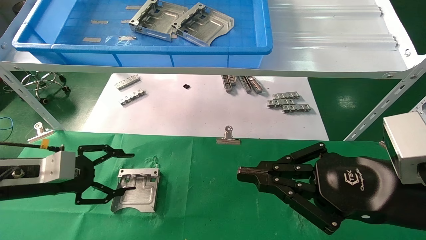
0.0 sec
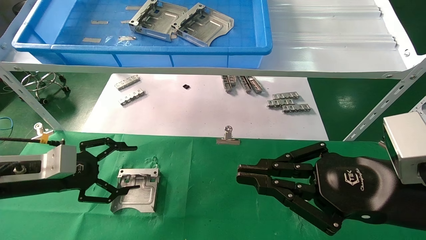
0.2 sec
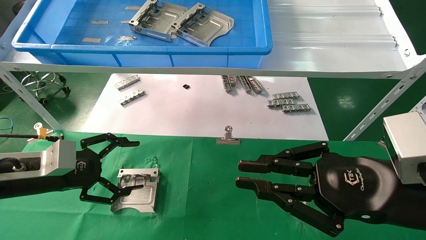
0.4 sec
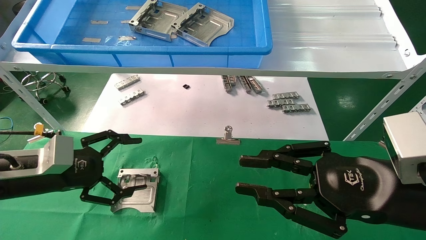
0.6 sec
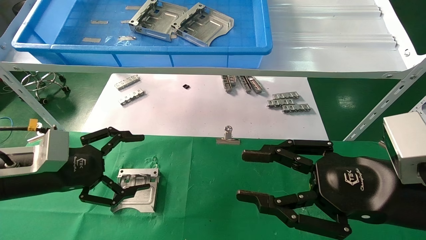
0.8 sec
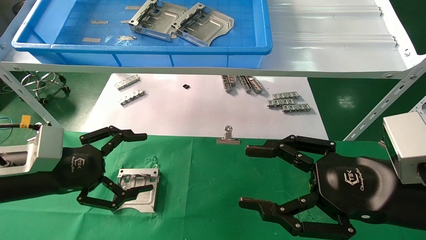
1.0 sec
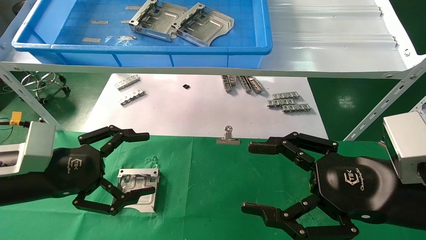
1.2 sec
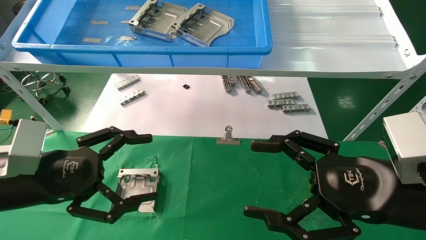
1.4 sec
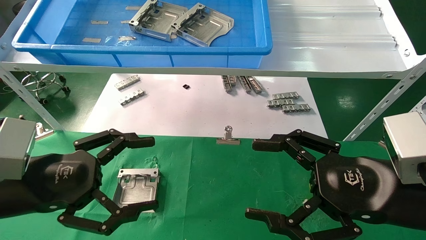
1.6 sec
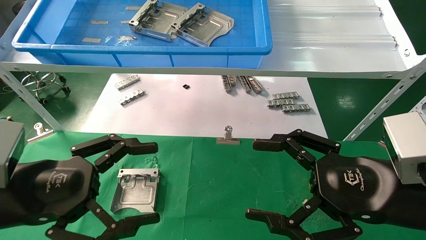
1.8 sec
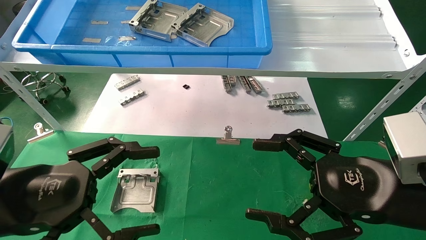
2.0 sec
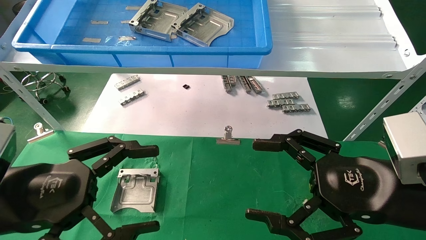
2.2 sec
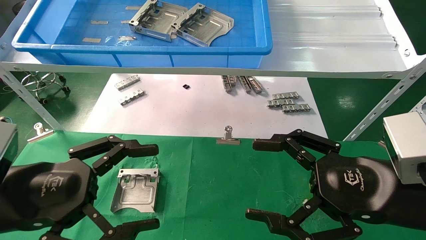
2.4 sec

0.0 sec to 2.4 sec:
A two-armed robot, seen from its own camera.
Task of the whole recording: use the mechanical arm to pick up the parts and place them on the table.
0.0 sec to 1.2 sec: The left gripper shifts some 10 cm backward and to the right, and opens its fingers. Meanwhile the right gripper opens its fingers.
1.2 sec to 2.4 sec: The left gripper goes roughly 5 cm backward.

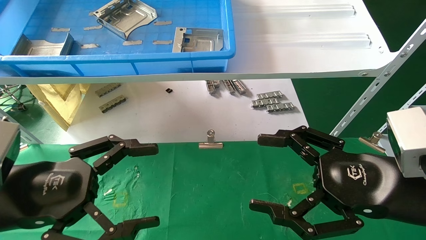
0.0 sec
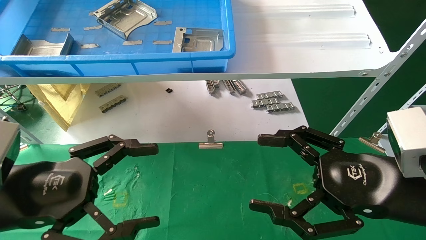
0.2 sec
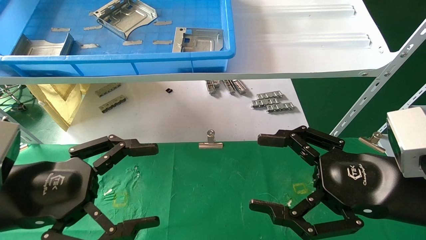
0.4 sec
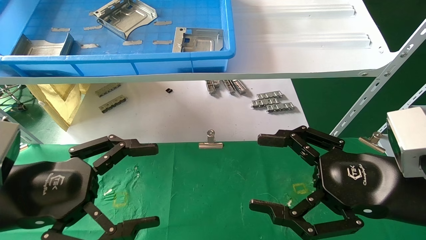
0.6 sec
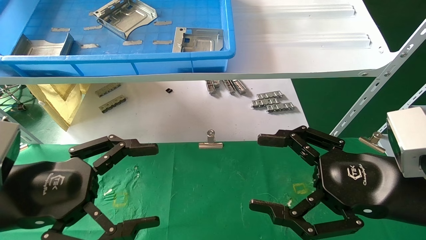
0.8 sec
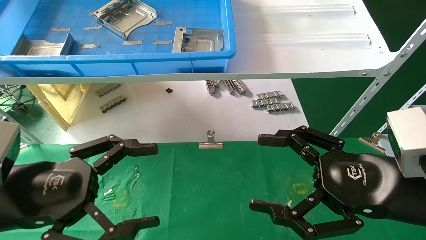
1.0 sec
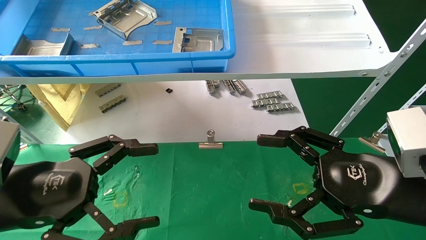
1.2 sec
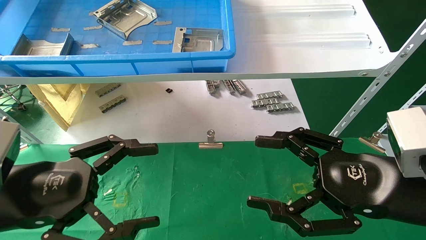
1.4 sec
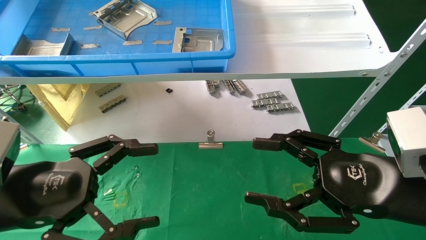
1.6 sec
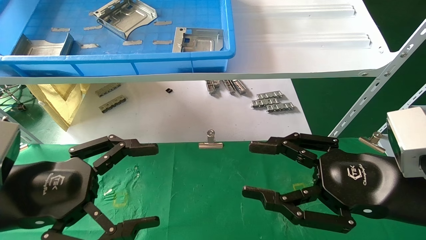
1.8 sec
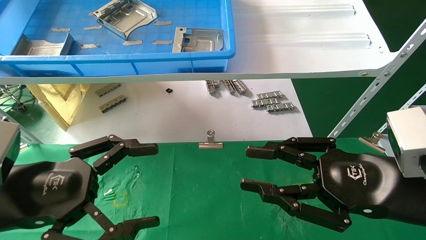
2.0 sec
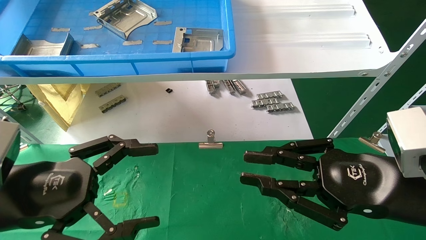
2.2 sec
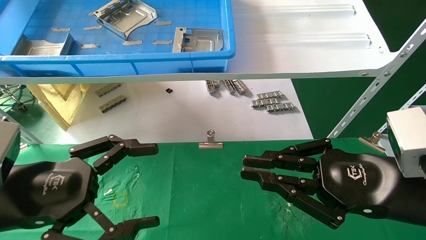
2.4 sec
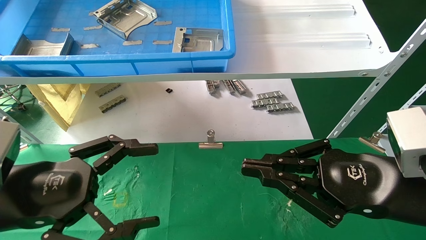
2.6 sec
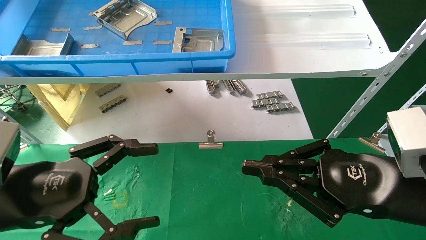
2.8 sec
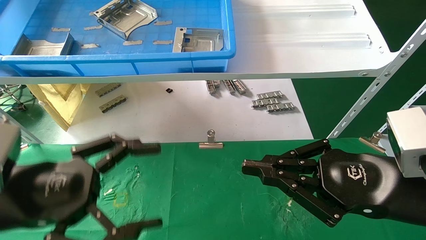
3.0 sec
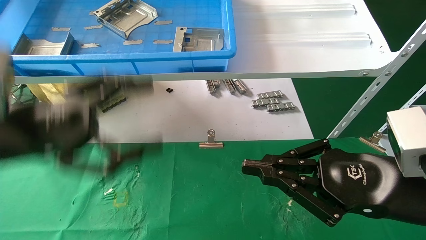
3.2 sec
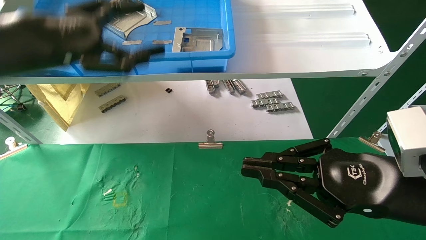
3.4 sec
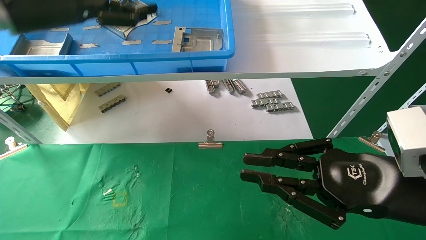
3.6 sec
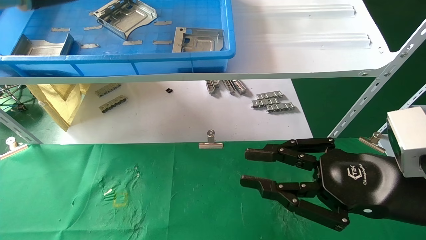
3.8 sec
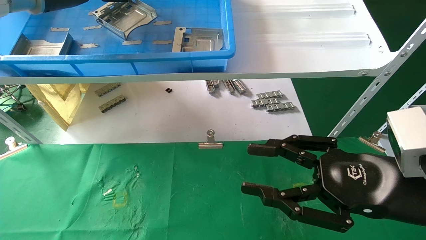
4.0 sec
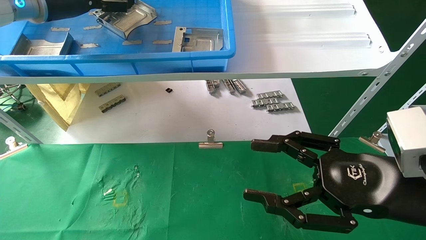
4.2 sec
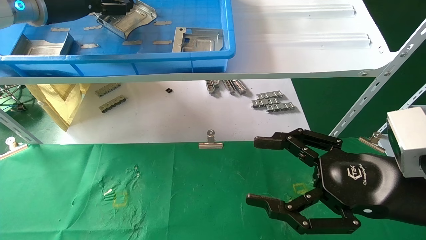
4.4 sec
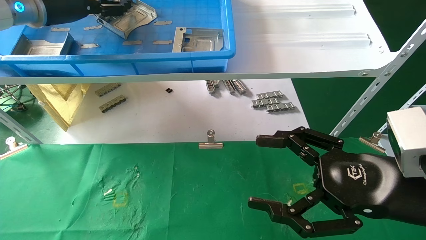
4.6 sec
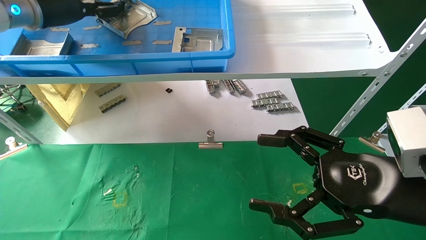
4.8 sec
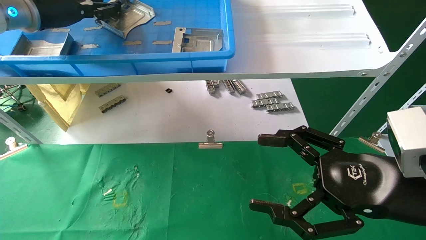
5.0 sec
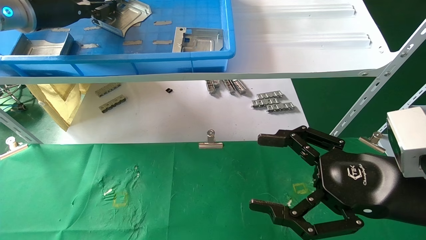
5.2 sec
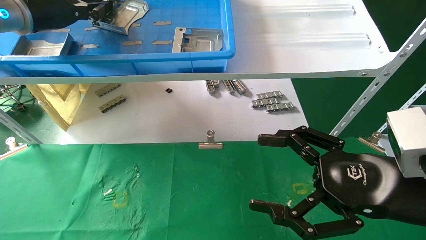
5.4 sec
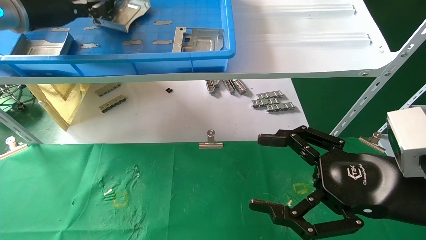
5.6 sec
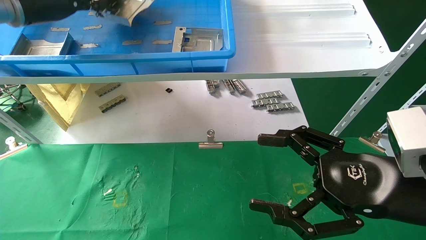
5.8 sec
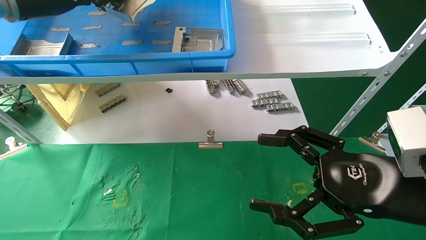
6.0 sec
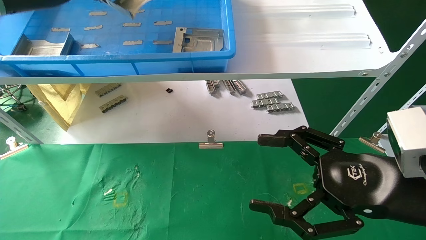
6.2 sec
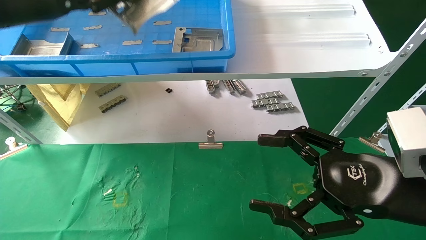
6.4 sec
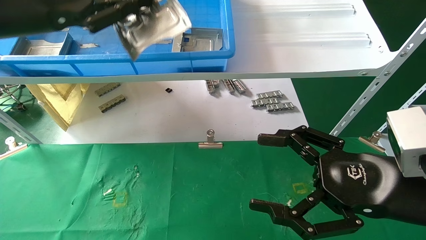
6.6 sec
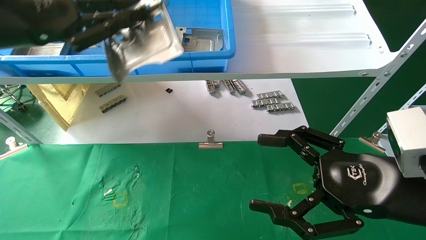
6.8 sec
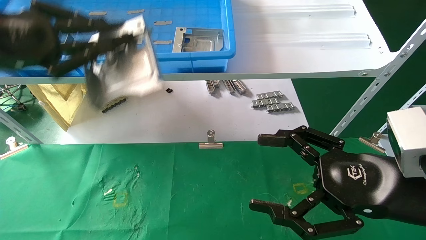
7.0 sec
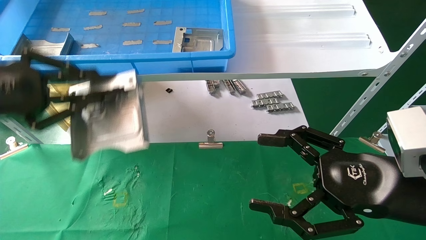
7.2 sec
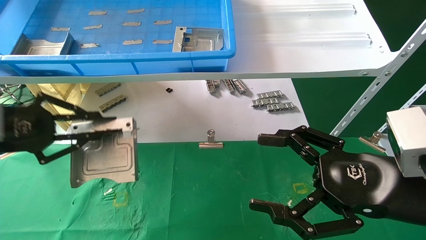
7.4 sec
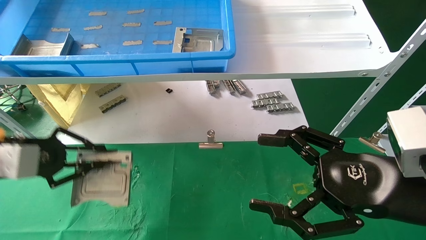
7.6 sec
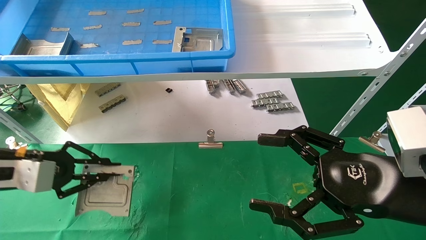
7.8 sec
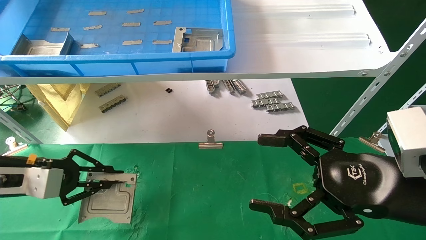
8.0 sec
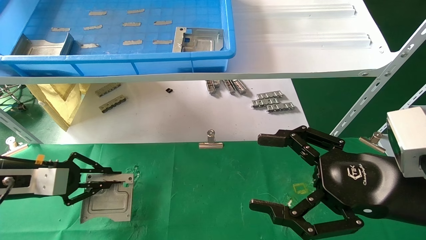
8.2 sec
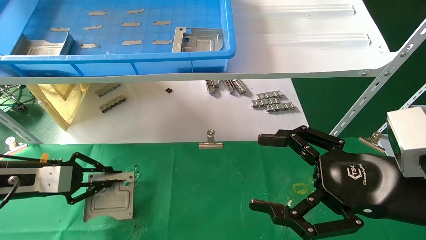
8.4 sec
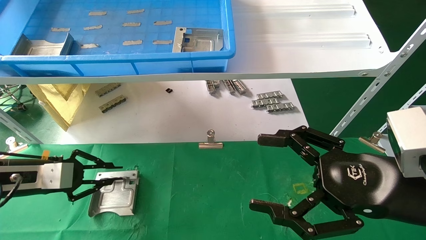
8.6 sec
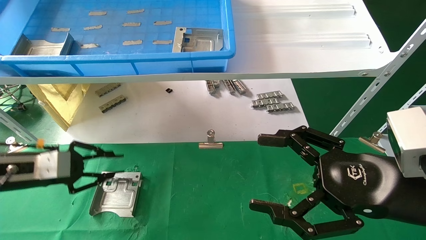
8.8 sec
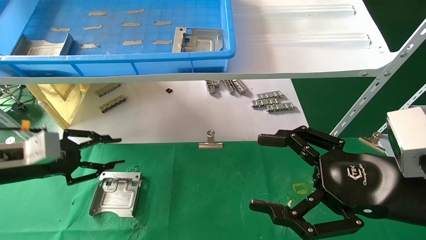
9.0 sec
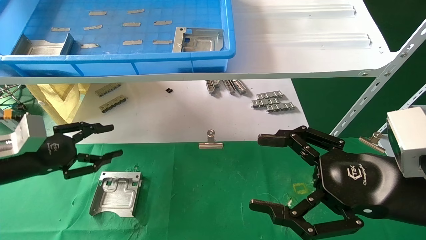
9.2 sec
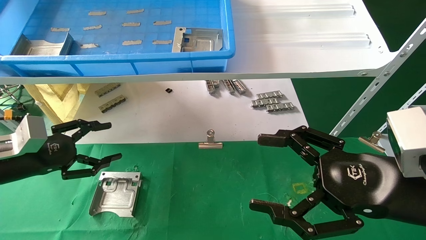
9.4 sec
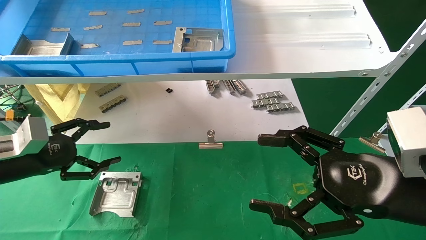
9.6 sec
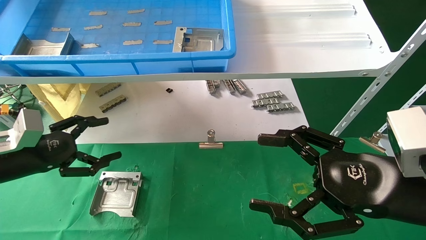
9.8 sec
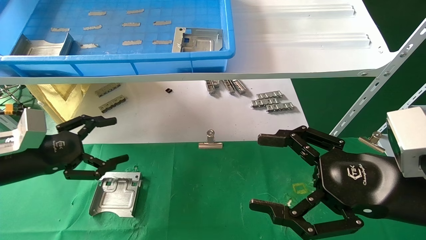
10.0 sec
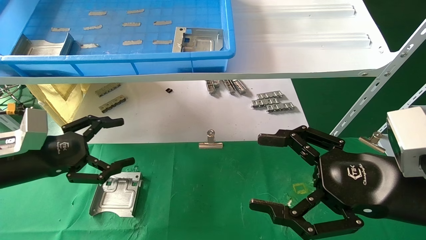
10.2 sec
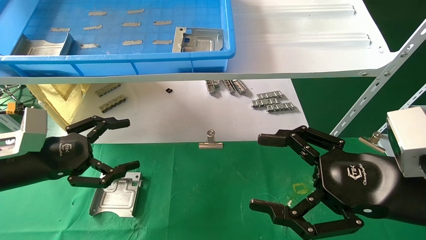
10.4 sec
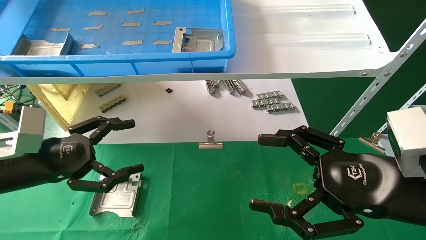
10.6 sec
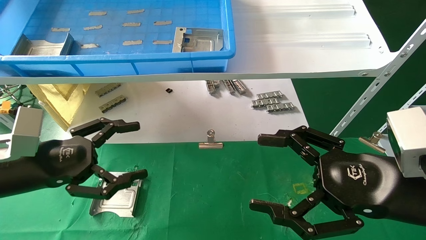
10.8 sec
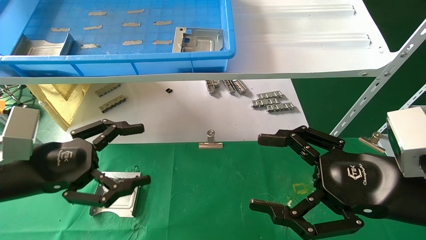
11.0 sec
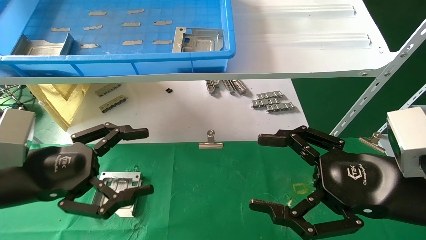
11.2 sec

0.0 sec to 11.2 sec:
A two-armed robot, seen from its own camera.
Task of the whole recording: use the mechanical arm to pick up the parts and place them on the table.
Step, 2.0 sec to 5.4 sec: Pick up the hard drive bracket from the feeding area.
Step, 5.6 sec to 8.8 sec: Place the hard drive bracket into the box.
0.0 sec to 1.6 sec: Both grippers stay about where they are.
1.6 sec to 3.2 sec: The left gripper travels upward and forward by approximately 10 cm, while the right gripper closes up.
3.2 sec to 4.8 sec: The left gripper goes roughly 25 cm forward and upward. Meanwhile the right gripper opens.
4.8 sec to 6.4 sec: The left gripper goes some 10 cm backward, and closes up.
6.4 sec to 8.0 sec: The left gripper moves downward, roughly 25 cm.
8.0 sec to 9.6 sec: The left gripper opens up.
9.6 sec to 11.2 sec: The left gripper moves to the right and backward, some 10 cm.

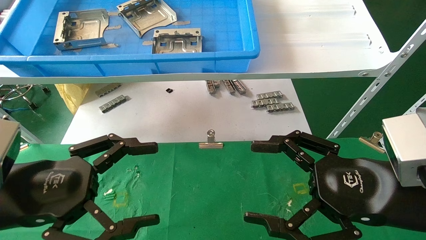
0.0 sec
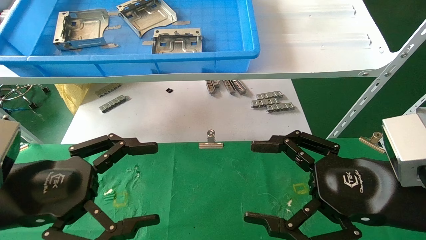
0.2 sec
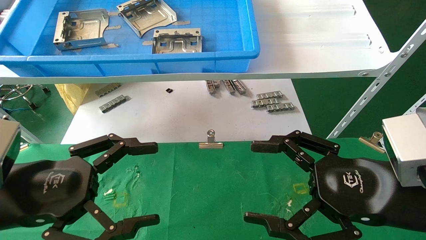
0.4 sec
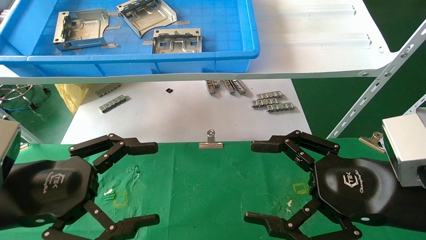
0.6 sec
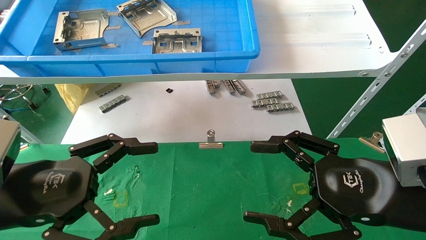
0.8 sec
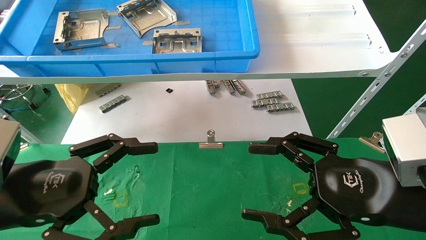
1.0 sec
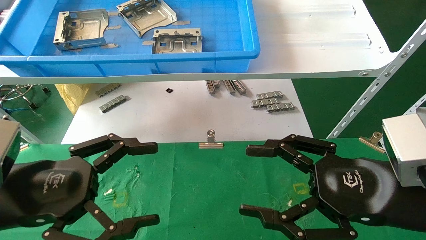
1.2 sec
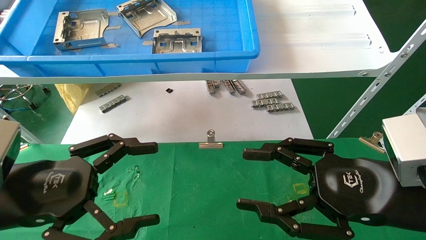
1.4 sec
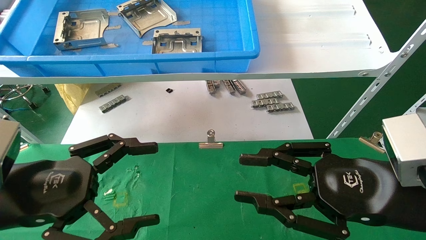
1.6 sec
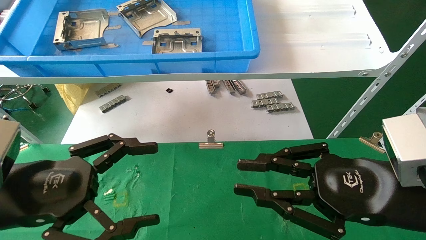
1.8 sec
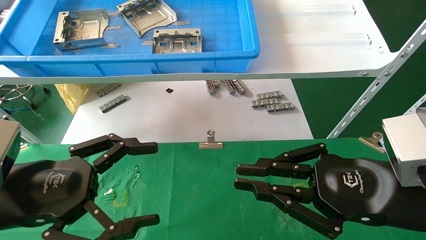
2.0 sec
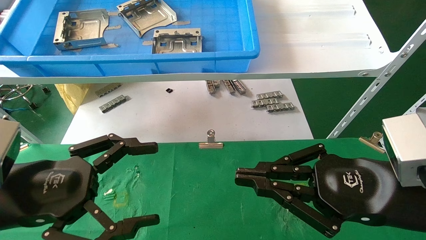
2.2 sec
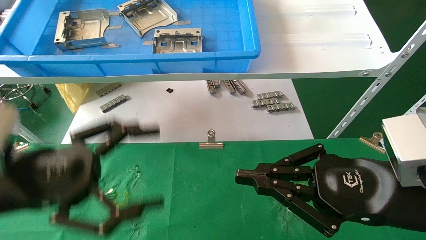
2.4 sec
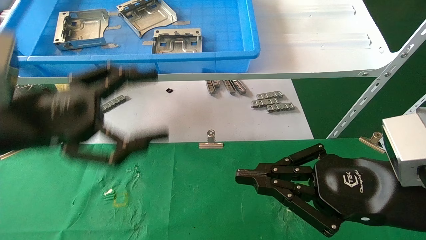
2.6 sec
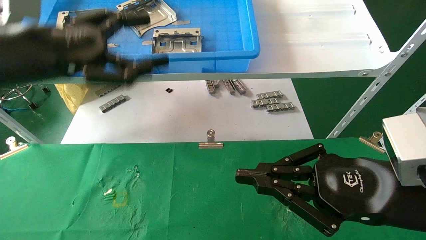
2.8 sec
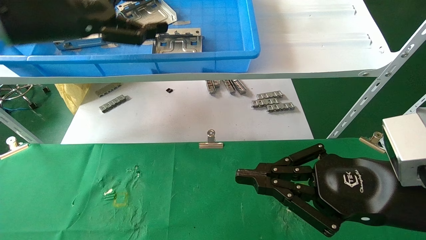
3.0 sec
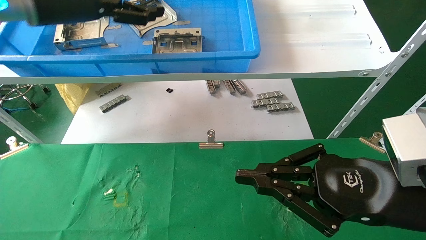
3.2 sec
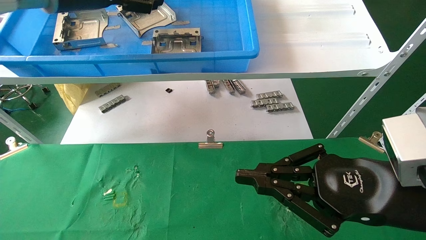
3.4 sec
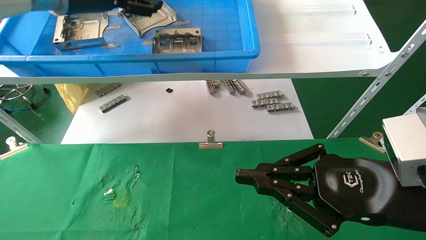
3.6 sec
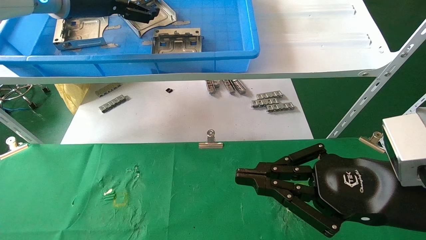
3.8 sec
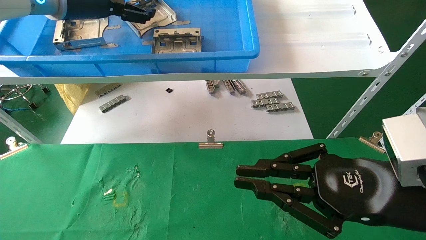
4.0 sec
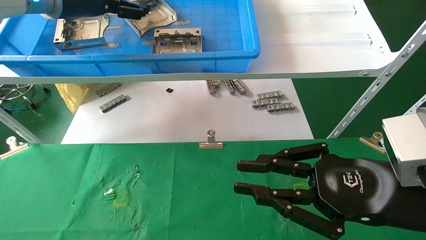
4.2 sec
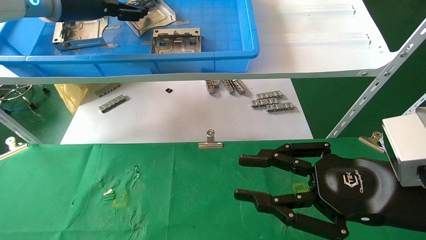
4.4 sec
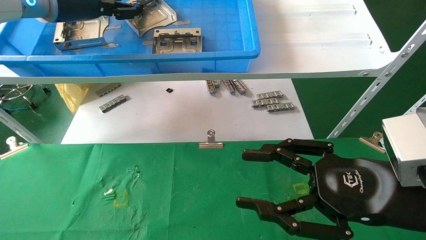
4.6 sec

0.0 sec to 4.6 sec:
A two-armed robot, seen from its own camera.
Task of the whole recording: use the mechanical arm to pick up the parts and place them on the table.
0.0 sec to 1.6 sec: The right gripper closes its fingers.
1.6 sec to 3.0 sec: The right gripper closes up. The left gripper moves upward and forward, roughly 25 cm.
3.0 sec to 4.6 sec: The right gripper opens; the left gripper heads forward, covering some 10 cm, and closes its fingers.
